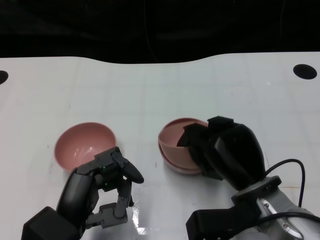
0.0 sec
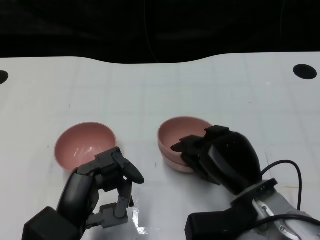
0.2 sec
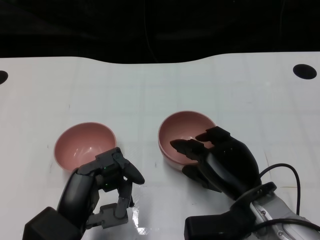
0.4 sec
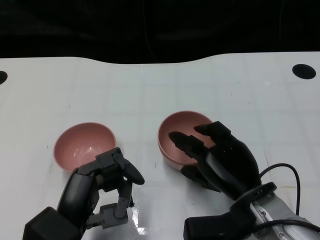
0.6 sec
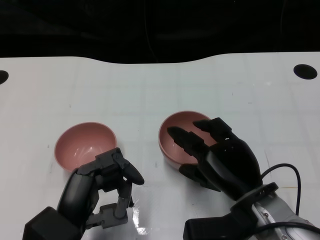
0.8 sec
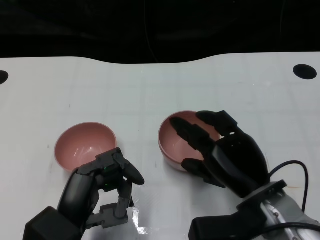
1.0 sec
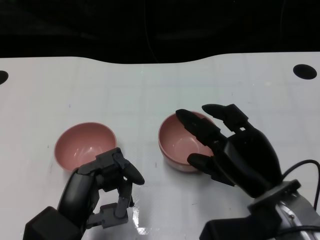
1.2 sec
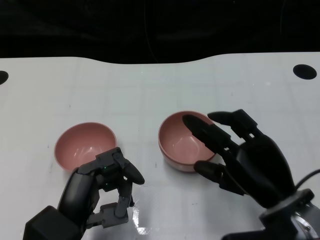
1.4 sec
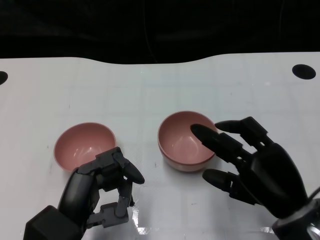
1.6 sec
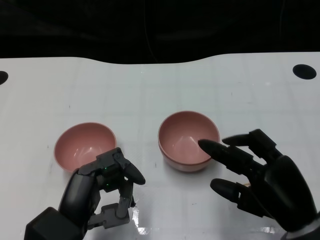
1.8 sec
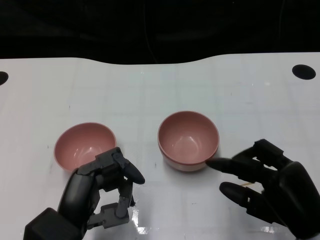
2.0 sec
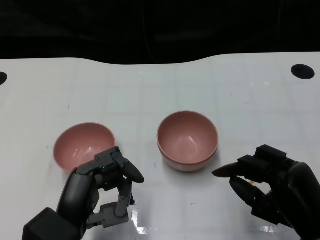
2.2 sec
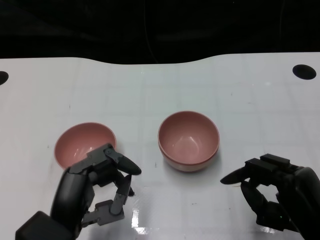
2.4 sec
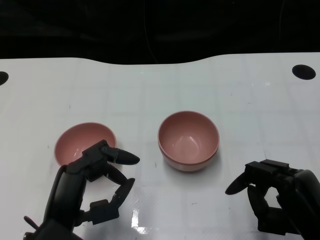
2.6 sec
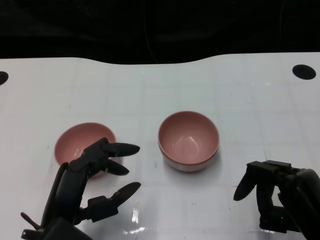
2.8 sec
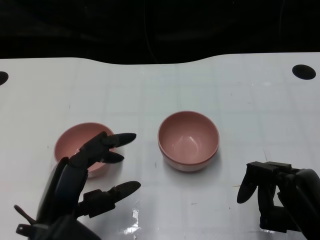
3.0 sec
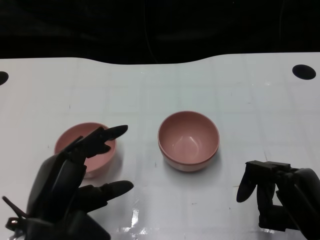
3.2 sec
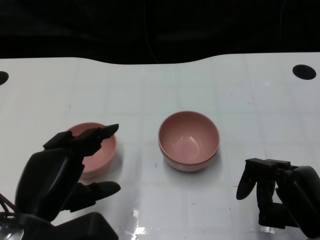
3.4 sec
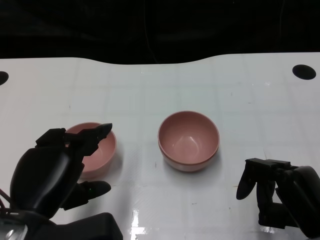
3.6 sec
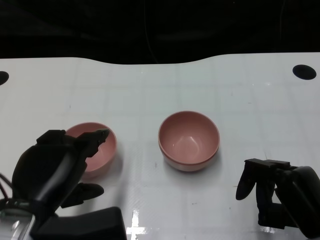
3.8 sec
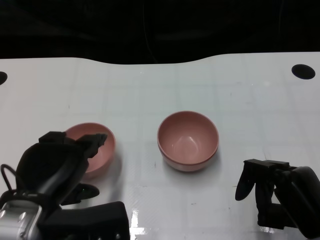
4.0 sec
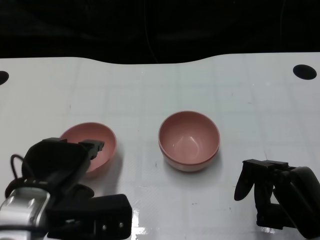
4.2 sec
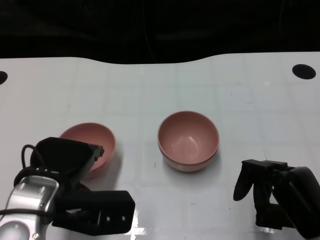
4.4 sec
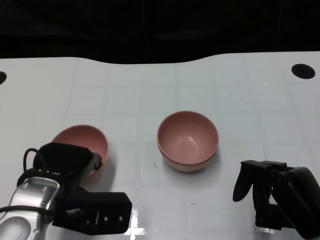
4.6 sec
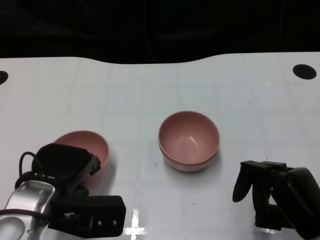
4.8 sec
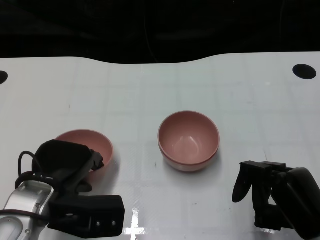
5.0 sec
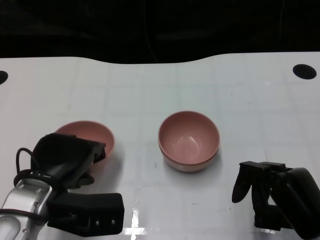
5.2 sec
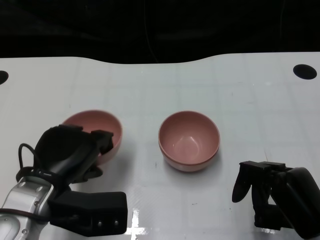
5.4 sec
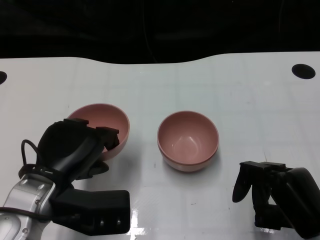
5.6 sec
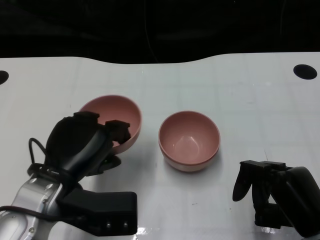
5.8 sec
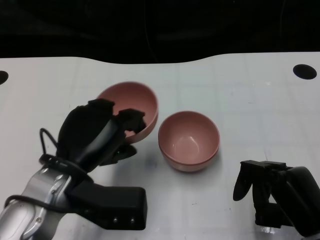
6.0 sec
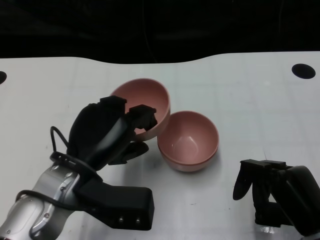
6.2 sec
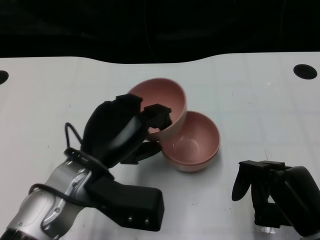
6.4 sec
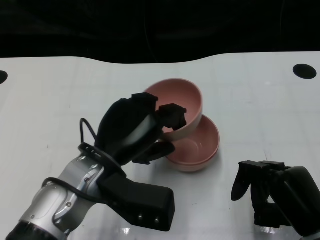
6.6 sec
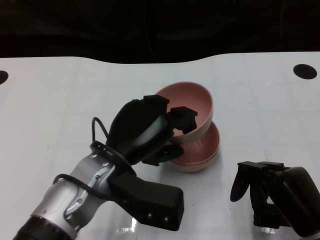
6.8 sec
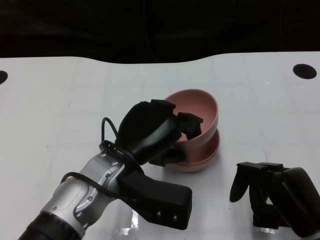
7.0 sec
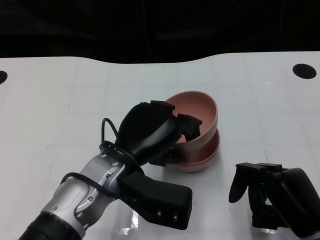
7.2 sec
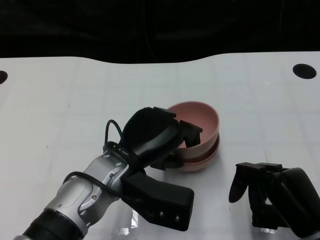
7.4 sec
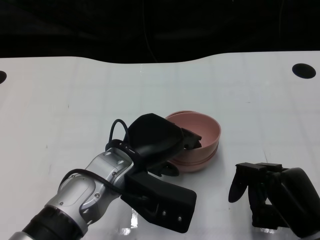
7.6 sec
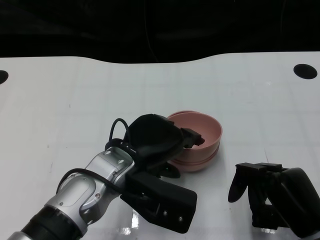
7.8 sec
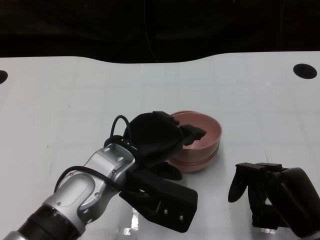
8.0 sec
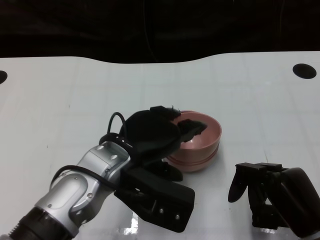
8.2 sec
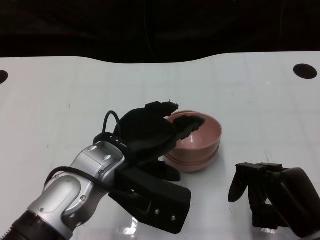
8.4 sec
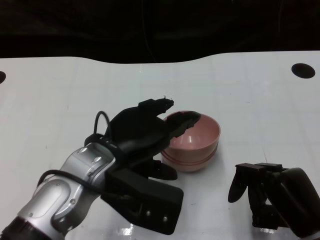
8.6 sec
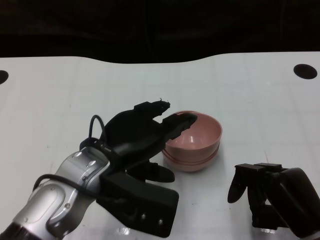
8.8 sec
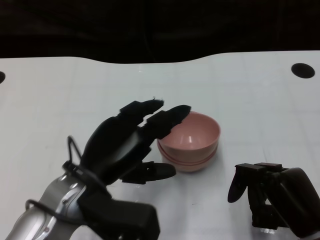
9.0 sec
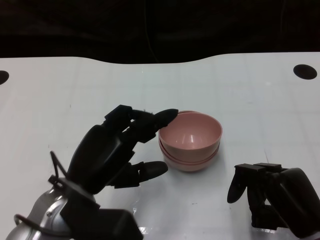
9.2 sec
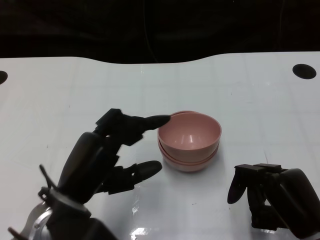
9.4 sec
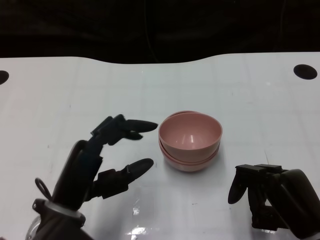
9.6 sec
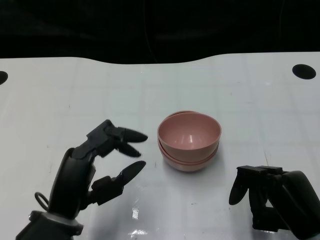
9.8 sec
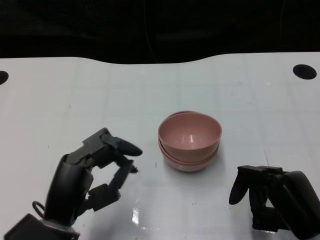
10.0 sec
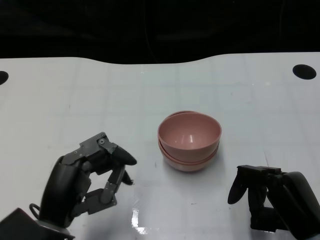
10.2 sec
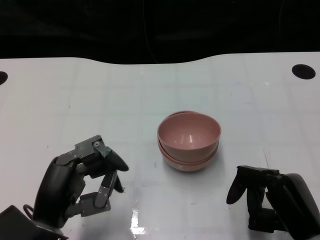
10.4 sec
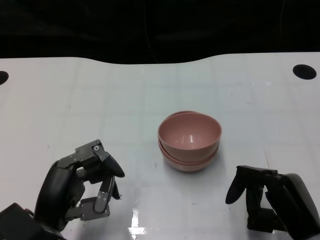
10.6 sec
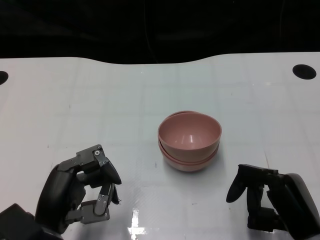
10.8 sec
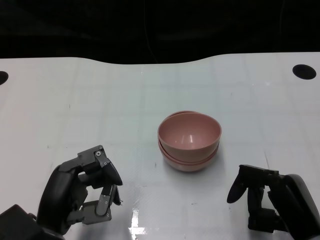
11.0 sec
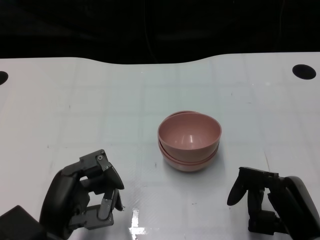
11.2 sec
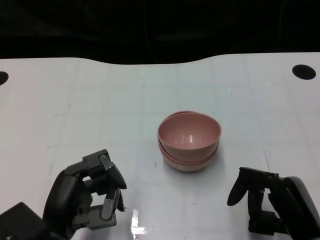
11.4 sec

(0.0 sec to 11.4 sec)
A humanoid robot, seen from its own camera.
Task of the whole recording: Pick up the bowl on one side of the table and place it on top of the middle bowl, then pick up the bowl on the other side of the table and place it on top of the middle bowls.
Step, 1.8 sec - 5.2 sec: Grasp the bowl on the left with the left gripper.
Step, 5.4 sec - 8.6 sec: Place the bowl on the left onto the bowl in the middle with left gripper.
0.0 sec - 1.4 sec: The right hand shifts by roughly 5 cm.
1.4 sec - 2.8 sec: The right hand is displaced to the right by approximately 5 cm.
2.8 sec - 4.2 sec: The left hand changes place by some 5 cm.
4.2 sec - 5.6 sec: The hands stay close to where they were, moving slightly.
5.6 sec - 7.2 sec: The left hand moves to the right, roughly 10 cm.
8.6 sec - 10.0 sec: The left hand goes approximately 10 cm downward, backward and to the left.
10.0 sec - 11.4 sec: The hands make only small movements.

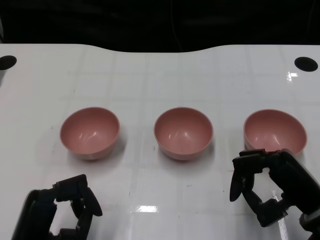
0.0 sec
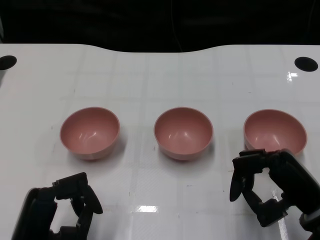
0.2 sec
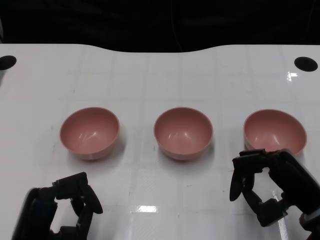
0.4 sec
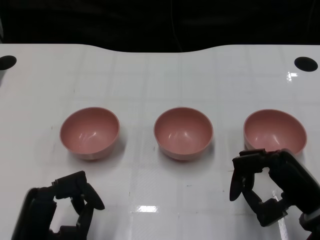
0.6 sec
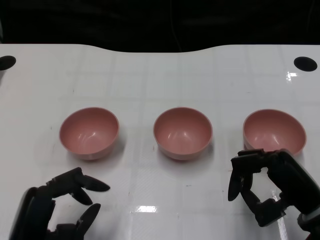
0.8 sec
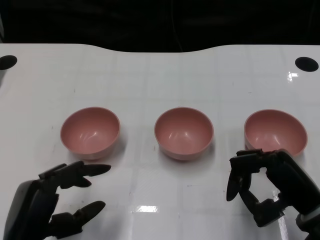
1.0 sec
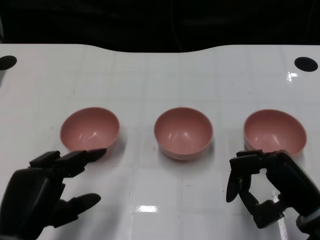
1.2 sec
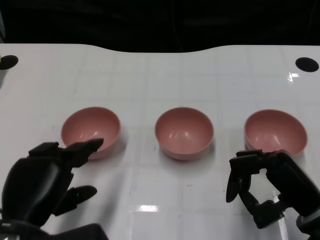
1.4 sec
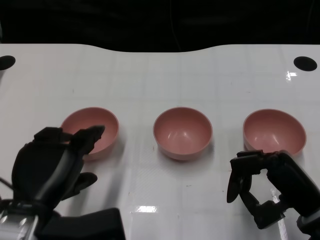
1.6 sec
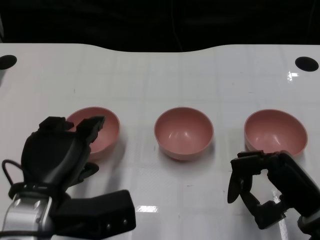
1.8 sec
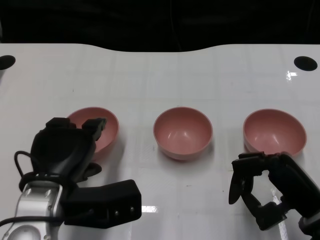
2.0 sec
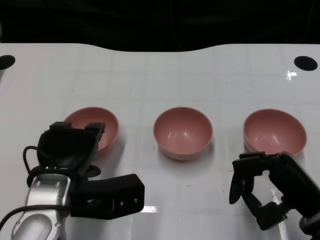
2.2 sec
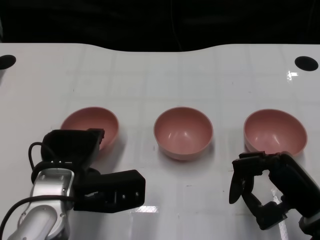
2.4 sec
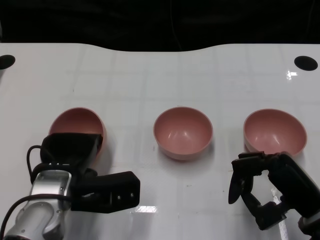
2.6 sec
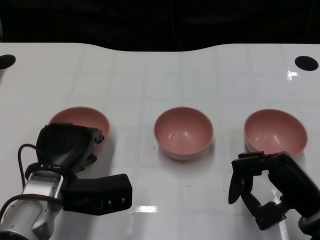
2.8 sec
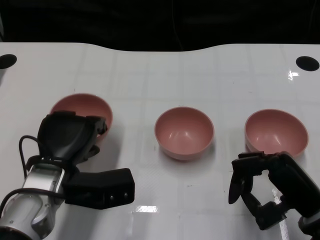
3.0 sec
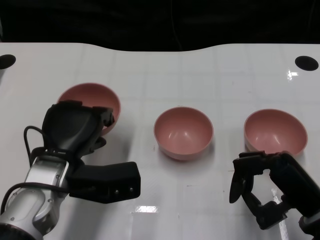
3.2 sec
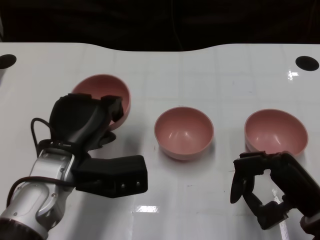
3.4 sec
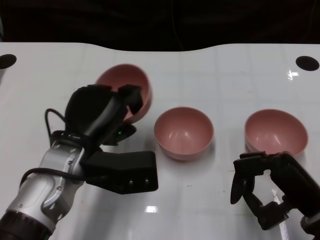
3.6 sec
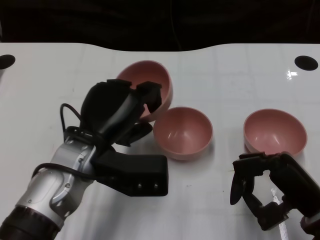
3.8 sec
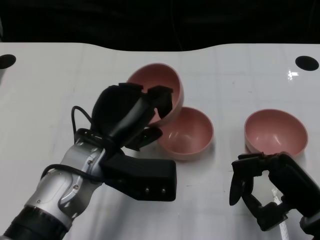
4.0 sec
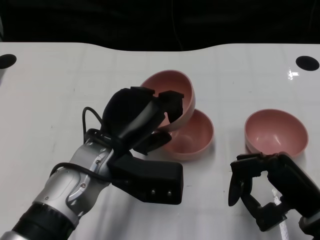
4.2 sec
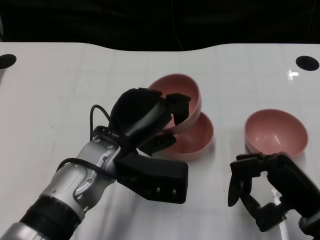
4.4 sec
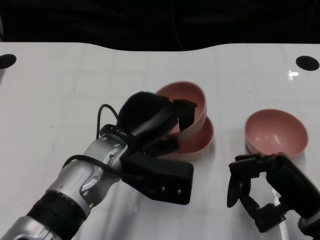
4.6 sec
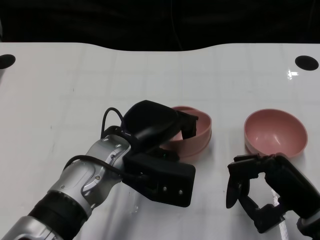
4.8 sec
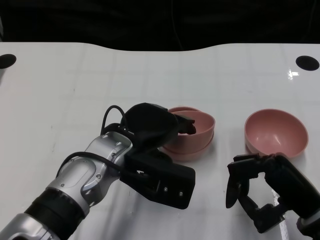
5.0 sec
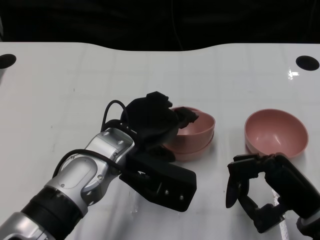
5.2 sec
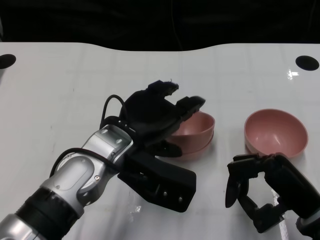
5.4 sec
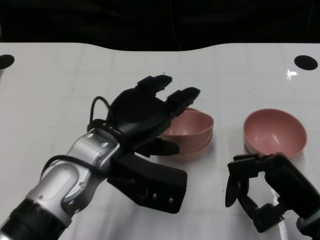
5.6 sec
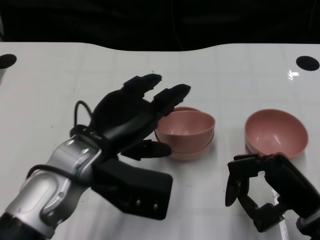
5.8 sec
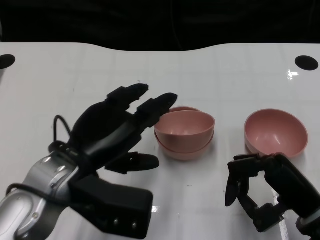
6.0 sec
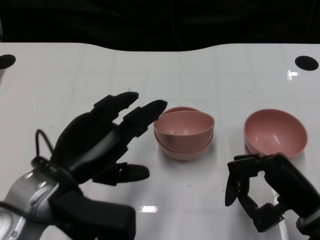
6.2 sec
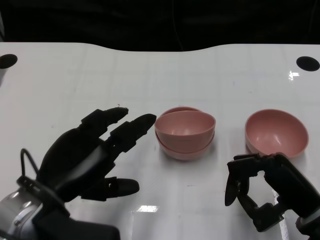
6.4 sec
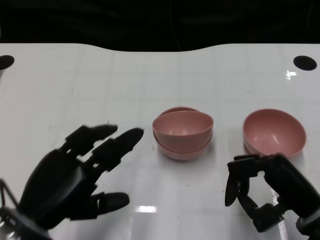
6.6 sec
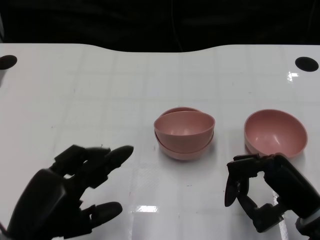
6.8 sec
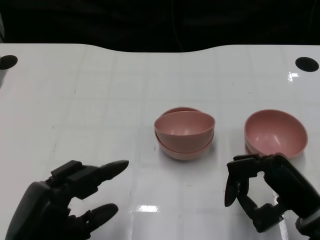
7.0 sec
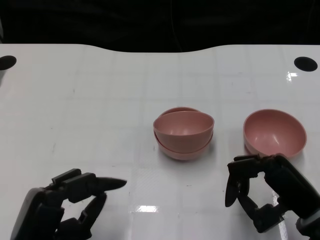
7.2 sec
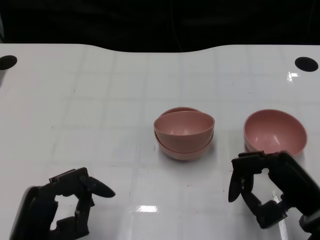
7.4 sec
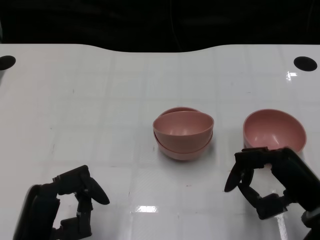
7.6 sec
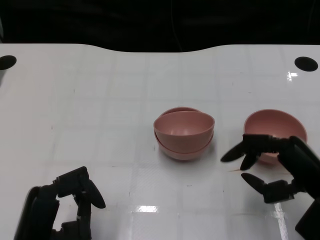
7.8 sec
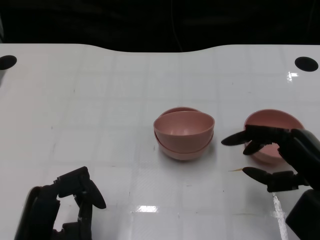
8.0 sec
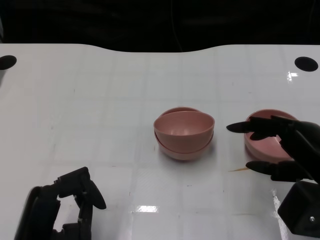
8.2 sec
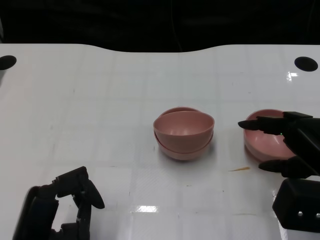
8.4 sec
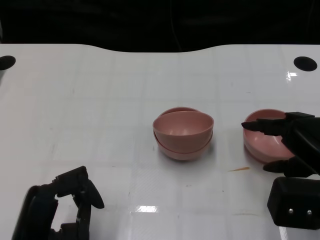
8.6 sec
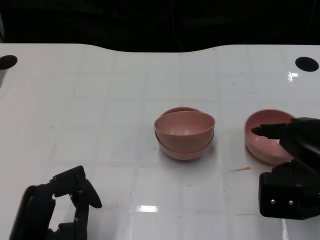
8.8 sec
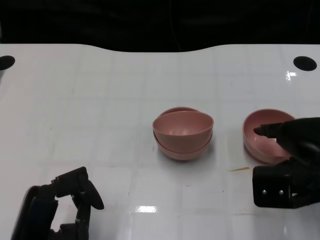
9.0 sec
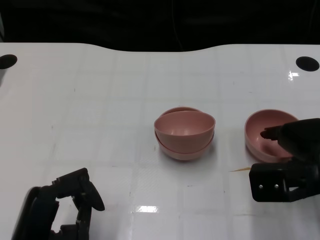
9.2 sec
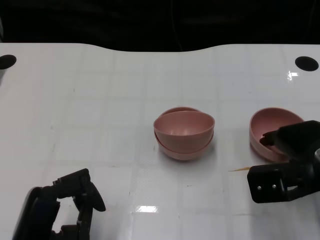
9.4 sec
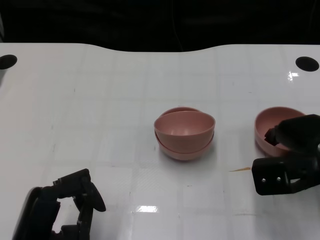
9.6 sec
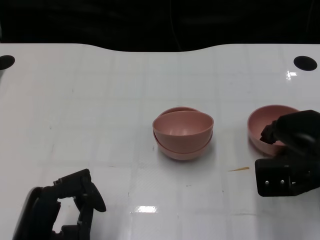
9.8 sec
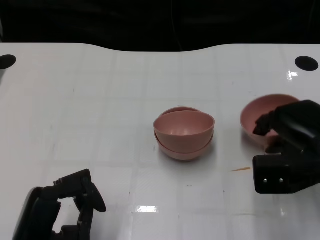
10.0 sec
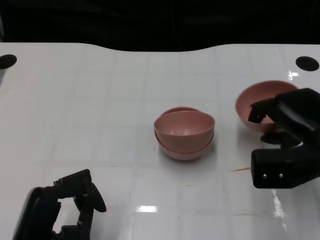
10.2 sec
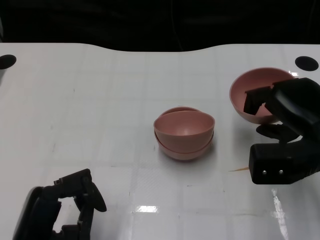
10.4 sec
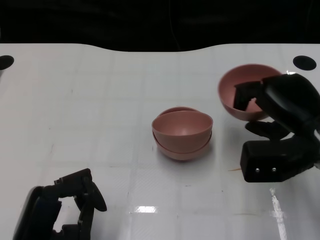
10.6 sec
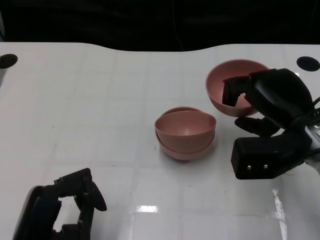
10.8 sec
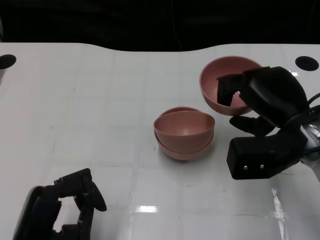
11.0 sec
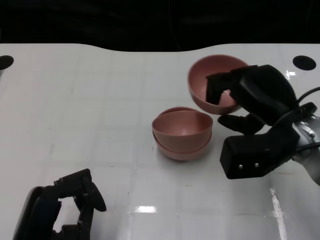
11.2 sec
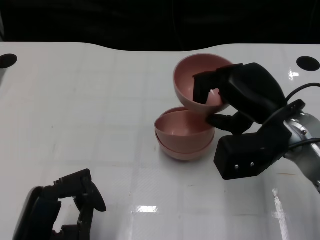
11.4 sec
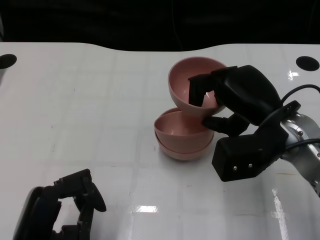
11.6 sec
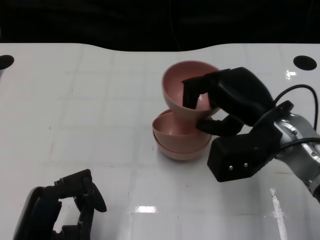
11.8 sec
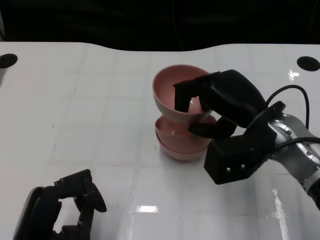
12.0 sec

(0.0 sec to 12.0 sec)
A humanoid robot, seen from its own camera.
Task of the whole recording: Pick up the bowl on one side of the table and place it on top of the middle bowl, then pick up the bowl on the other side of the table and place it on top of the middle bowls.
Step, 0.8 sec - 2.8 sec: Grasp the bowl on the left with the left gripper.
Step, 3.0 sec - 5.8 sec: Place the bowl on the left onto the bowl in the middle with left gripper.
Step, 6.0 sec - 9.8 sec: Grasp the bowl on the right with the right gripper.
1.6 sec - 3.0 sec: The left hand moves forward, some 10 cm.
3.0 sec - 4.4 sec: The left hand goes about 10 cm to the right.
4.4 sec - 6.0 sec: The left hand shifts about 5 cm to the left.
6.0 sec - 7.6 sec: The left hand goes about 15 cm backward, downward and to the left.
7.6 sec - 9.0 sec: The right hand ends up approximately 5 cm from where it was.
10.4 sec - 12.0 sec: The right hand moves to the left, roughly 10 cm.
